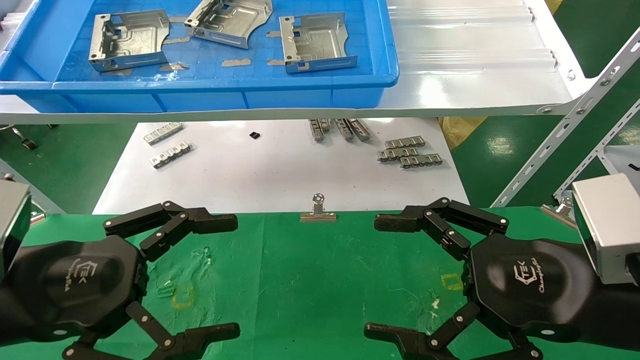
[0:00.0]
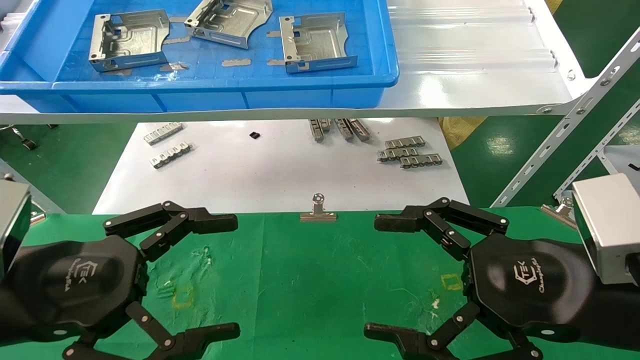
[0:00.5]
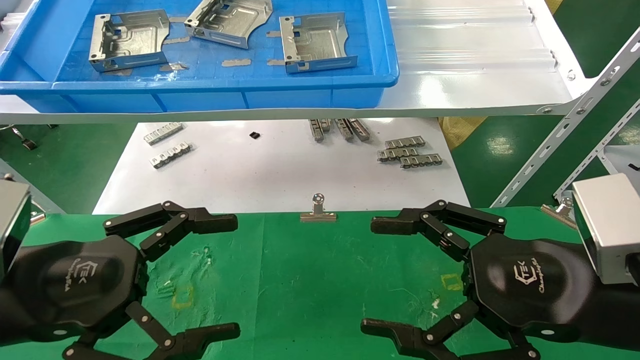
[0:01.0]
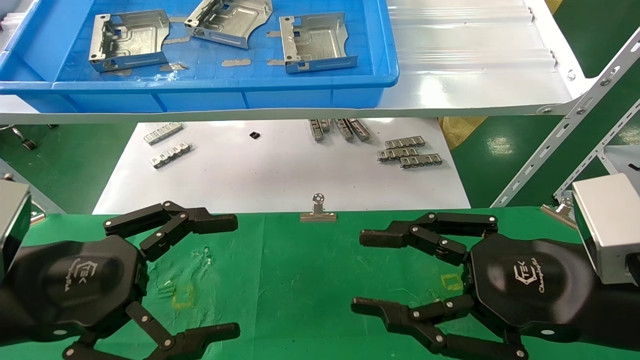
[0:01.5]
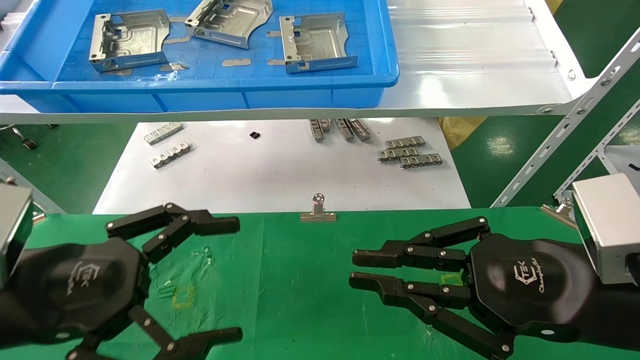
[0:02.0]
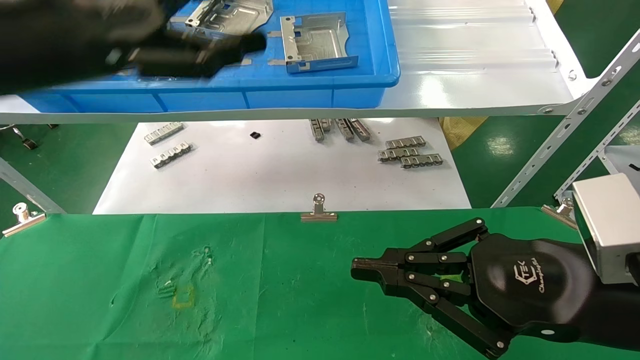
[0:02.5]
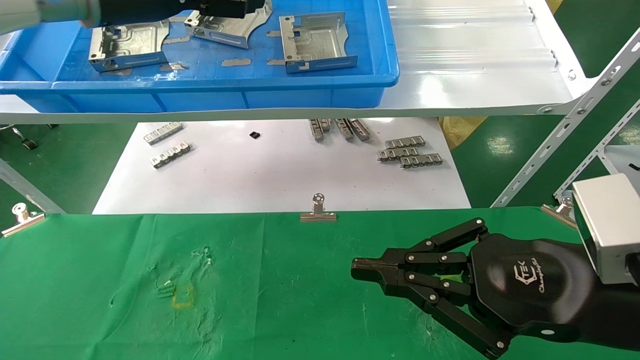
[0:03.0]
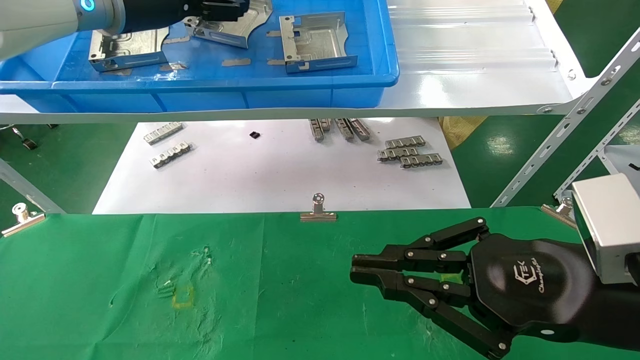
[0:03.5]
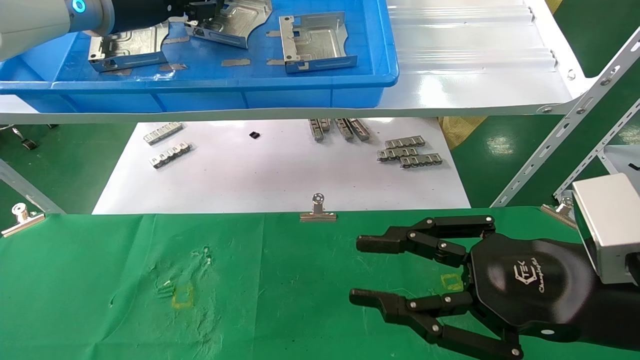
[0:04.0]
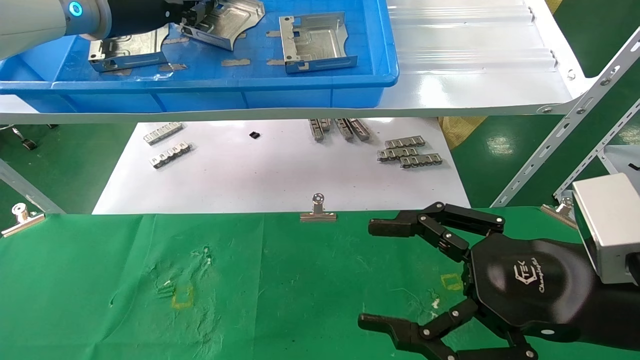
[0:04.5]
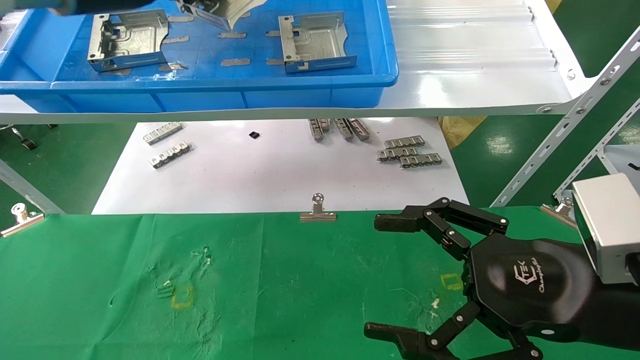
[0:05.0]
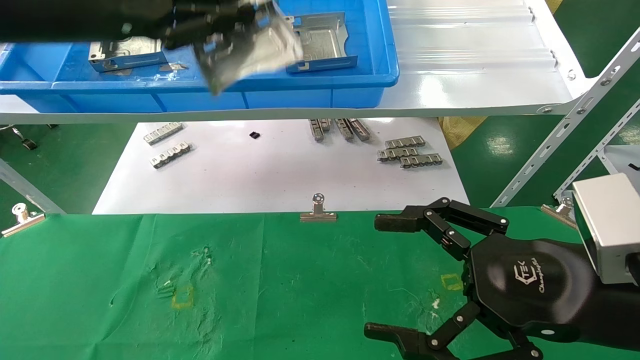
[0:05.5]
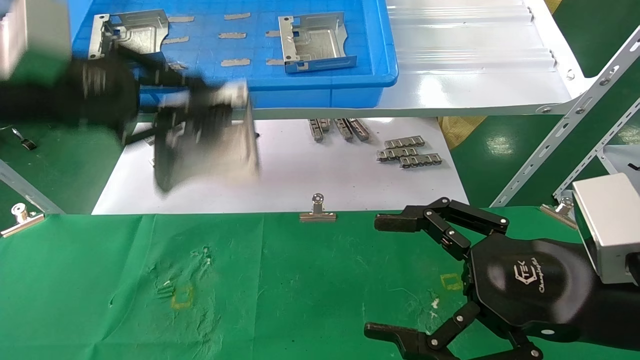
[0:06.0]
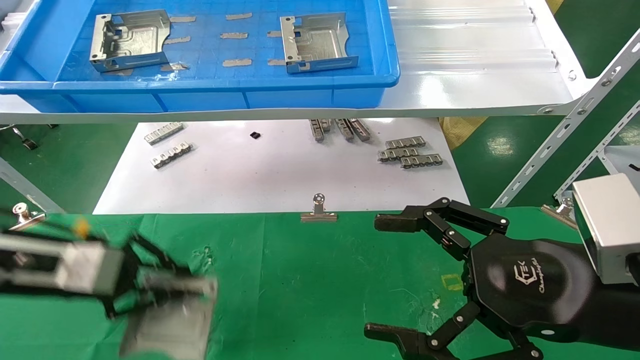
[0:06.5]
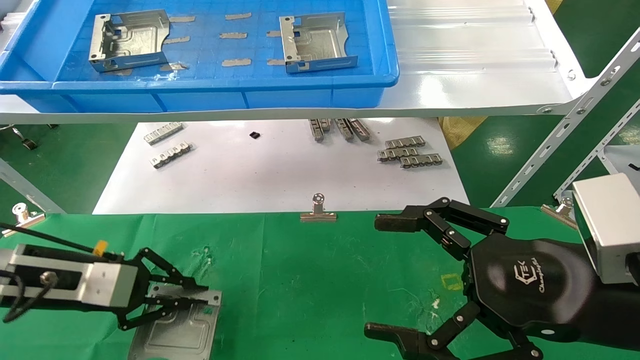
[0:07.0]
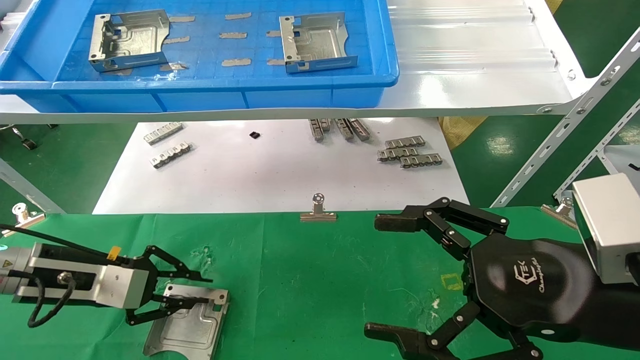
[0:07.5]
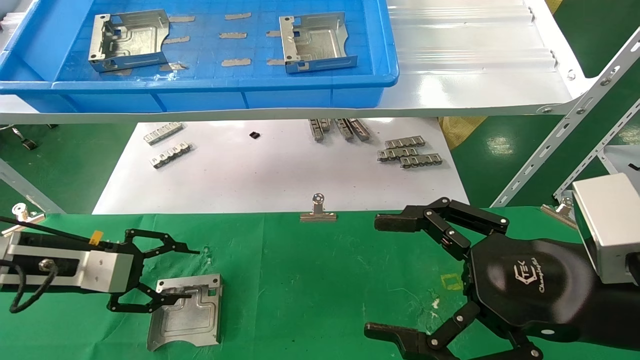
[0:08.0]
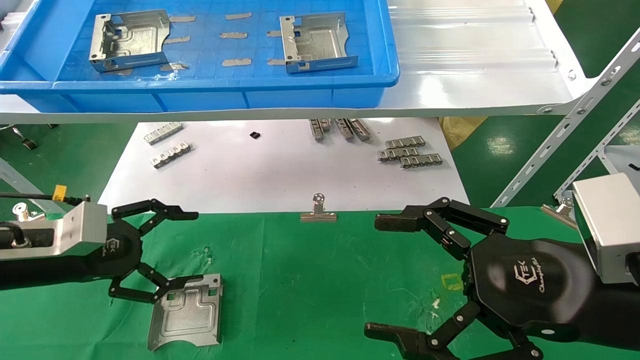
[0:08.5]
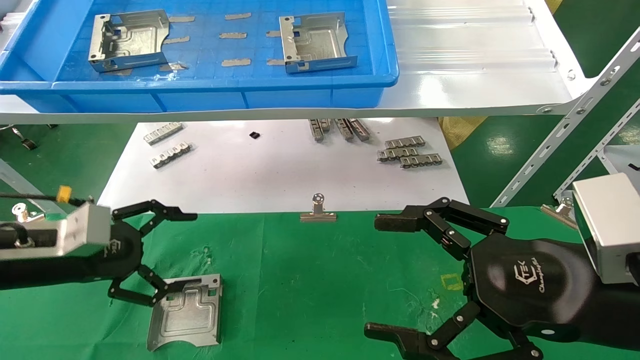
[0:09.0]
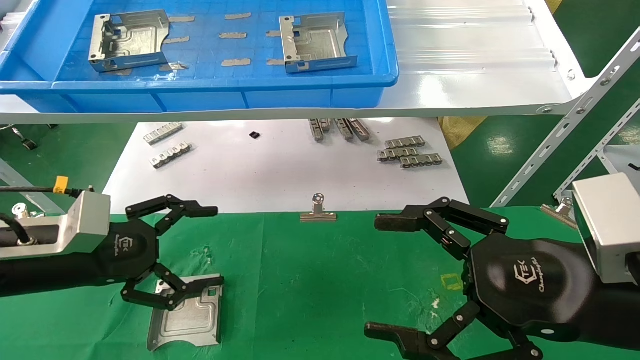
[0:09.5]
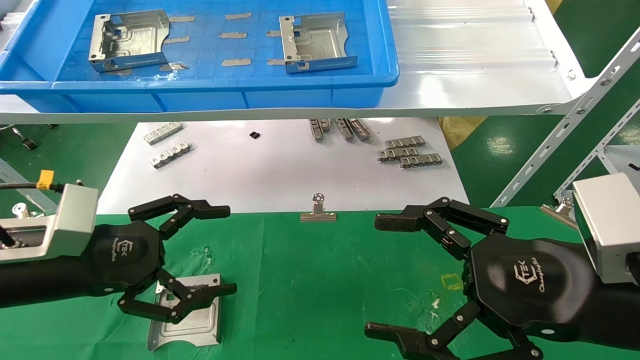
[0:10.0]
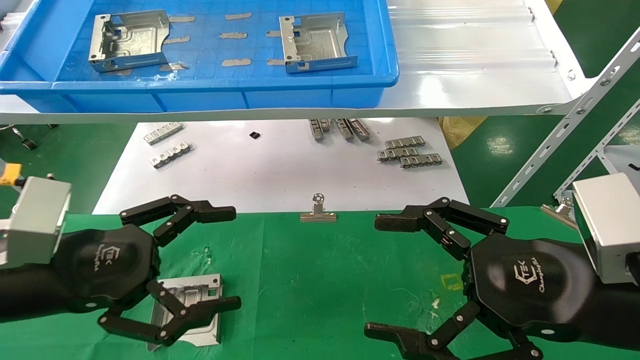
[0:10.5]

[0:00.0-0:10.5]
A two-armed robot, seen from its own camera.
Task of the whole recording: use the mechanical arm to pick up the parts and place them on the table.
Step, 0:01.5 to 0:05.0: Pick up the hard drive bracket from the feeding area.
Step, 0:05.5 to 0:08.0: Place the hard drive bracket into the box.
0:00.0 to 0:02.0: The right gripper closes its fingers.
0:02.0 to 0:04.0: The left gripper moves forward and upward, roughly 30 cm.
0:04.0 to 0:06.5: The left gripper shifts about 30 cm downward and backward, and closes; the right gripper opens up.
0:06.5 to 0:08.5: The left gripper opens up.
0:08.5 to 0:10.5: The left gripper heads backward and to the right, covering approximately 10 cm.

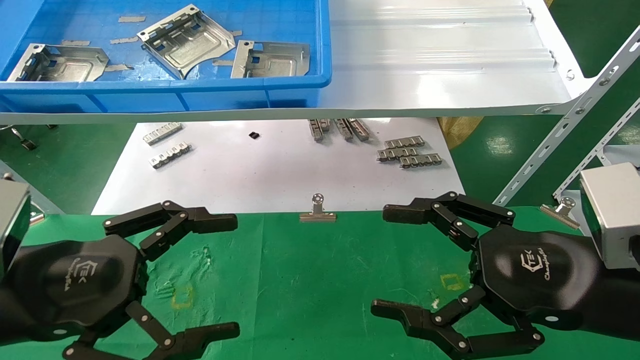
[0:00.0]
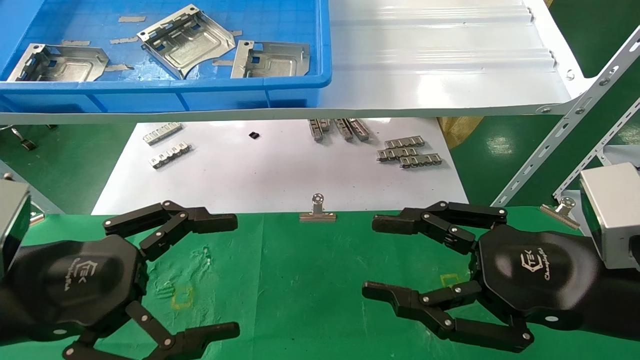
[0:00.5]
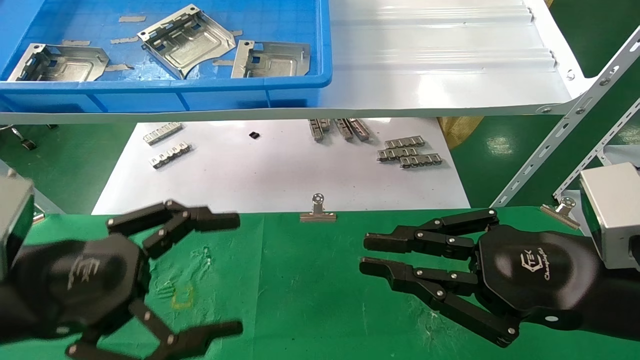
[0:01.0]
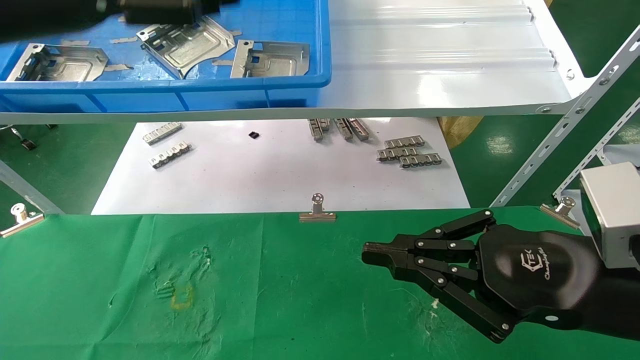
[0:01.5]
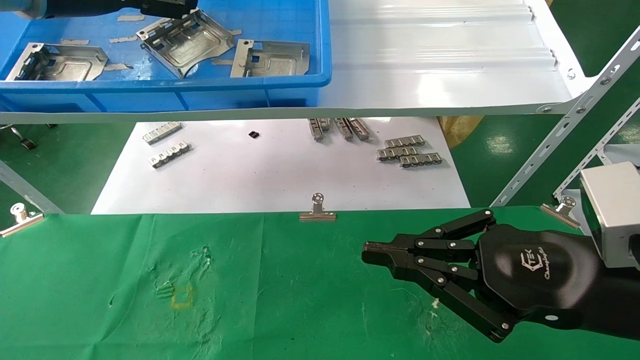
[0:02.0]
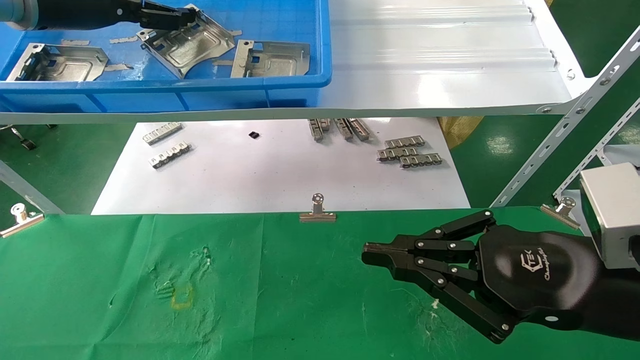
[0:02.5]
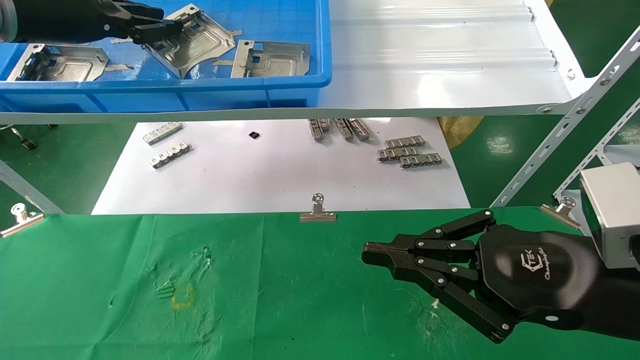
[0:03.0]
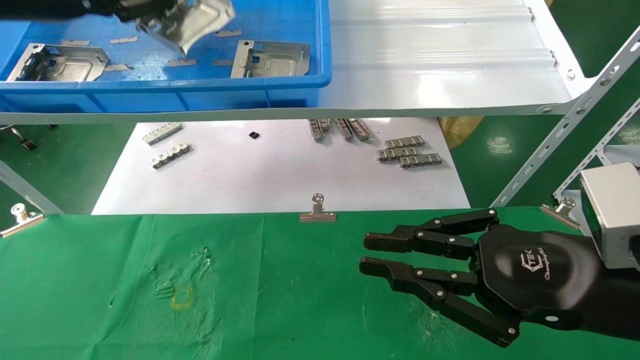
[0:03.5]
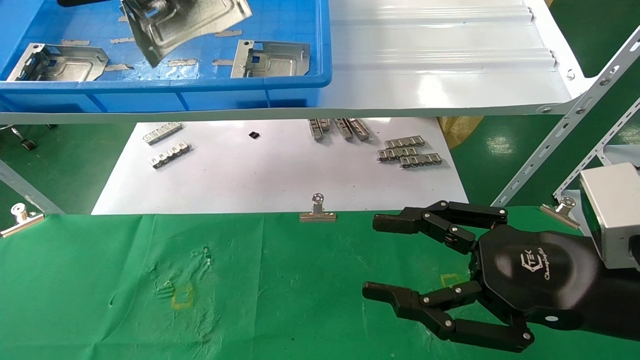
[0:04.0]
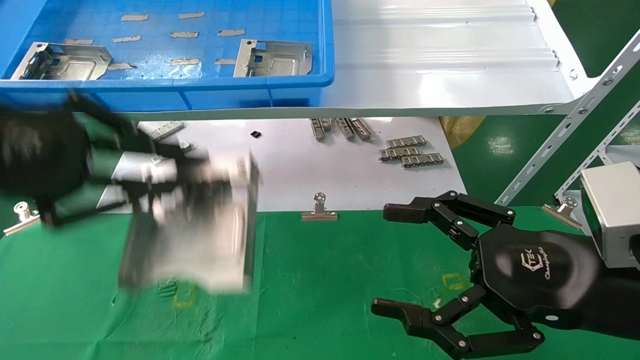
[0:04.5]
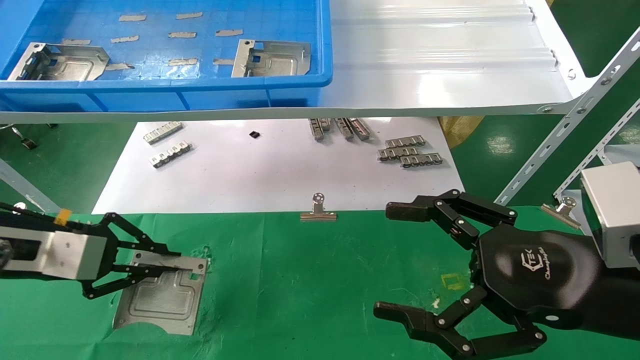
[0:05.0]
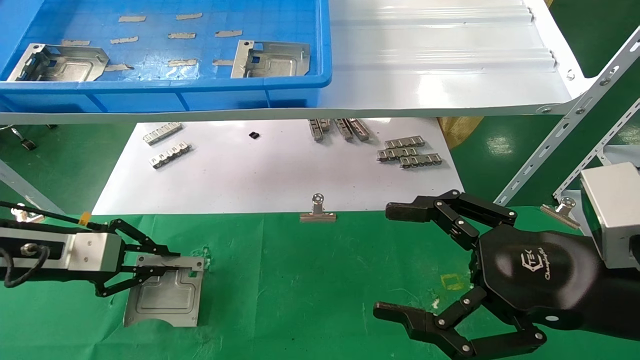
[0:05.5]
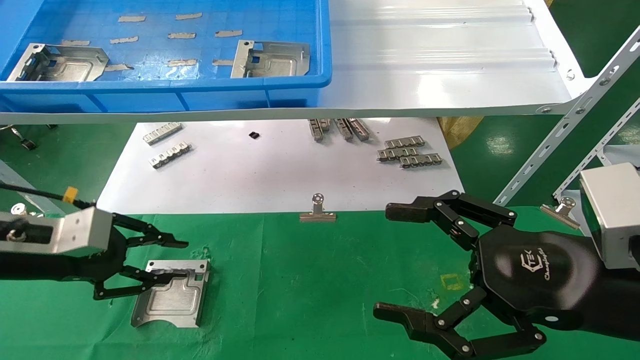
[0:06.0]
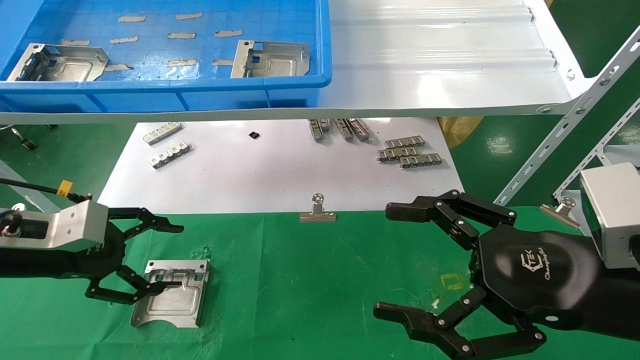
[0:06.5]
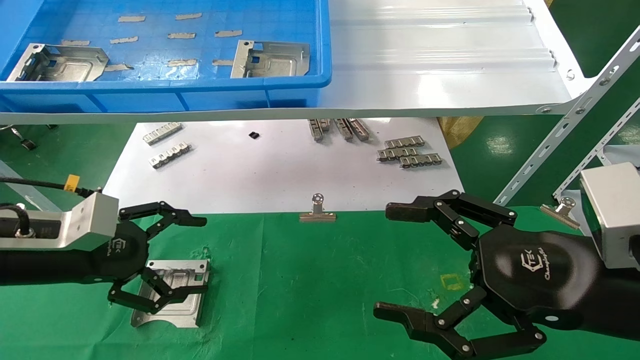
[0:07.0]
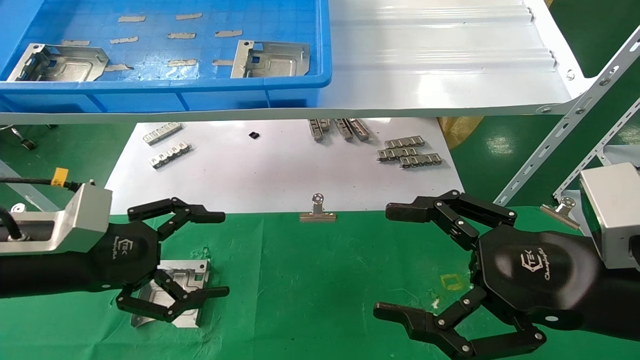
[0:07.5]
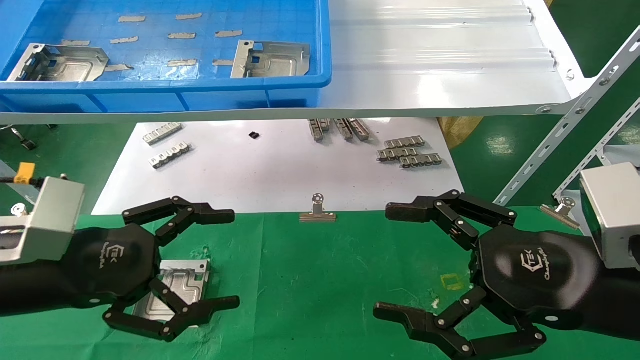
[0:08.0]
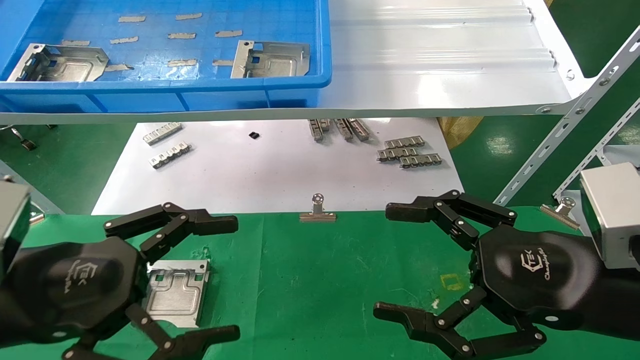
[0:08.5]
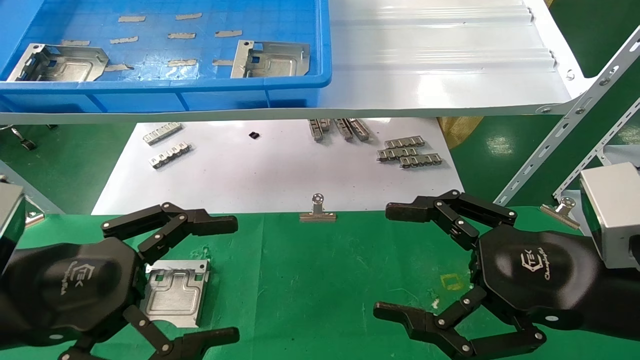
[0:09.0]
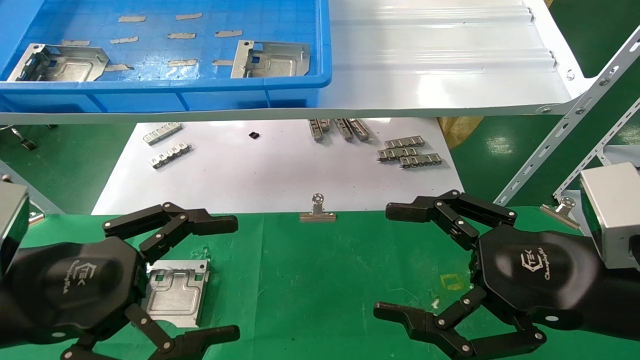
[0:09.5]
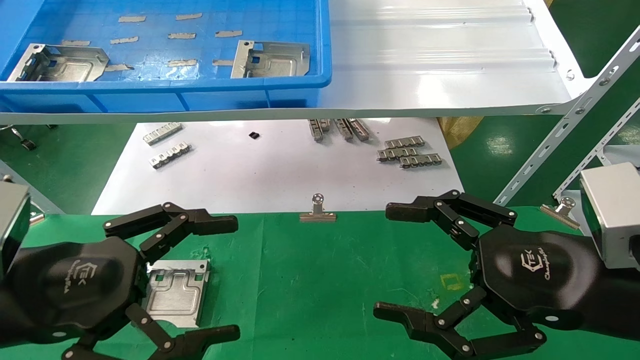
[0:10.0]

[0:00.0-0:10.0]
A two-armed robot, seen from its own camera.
Task of the whole recording: use the mechanical arm to pick up the parts and place them on the table.
Step, 0:01.5 to 0:03.0: Pick up the hard drive bracket from the feeding area.
Step, 0:03.5 to 0:05.5: Place the hard drive bracket into the box.
0:00.0 to 0:02.0: The right gripper closes up. The left gripper shifts approximately 35 cm upward and forward.
0:02.0 to 0:04.0: The right gripper opens up; the left gripper is displaced backward by about 15 cm, and closes.
0:04.0 to 0:06.0: The left gripper is displaced downward by approximately 30 cm; the right gripper opens up.
0:06.0 to 0:08.0: The left gripper travels backward and to the right by roughly 10 cm, and opens its fingers.
0:08.0 to 0:10.0: The grippers make only small movements.
